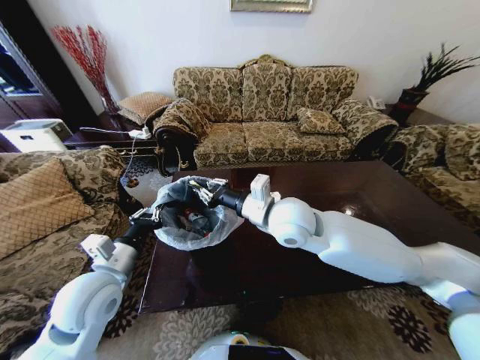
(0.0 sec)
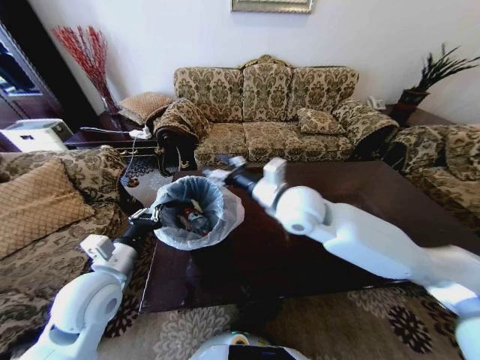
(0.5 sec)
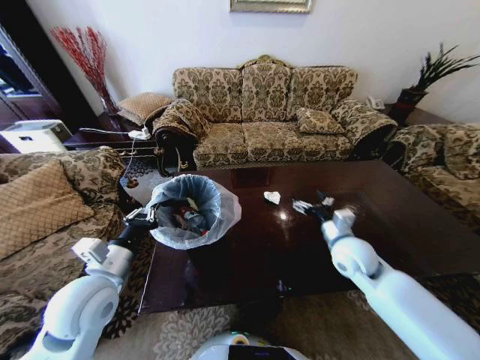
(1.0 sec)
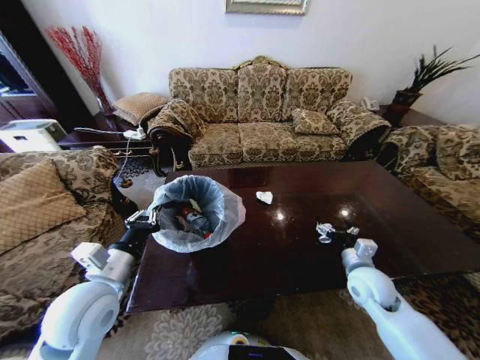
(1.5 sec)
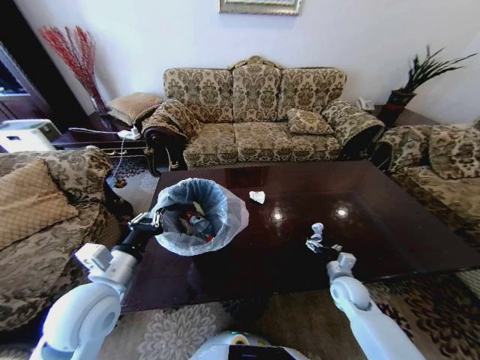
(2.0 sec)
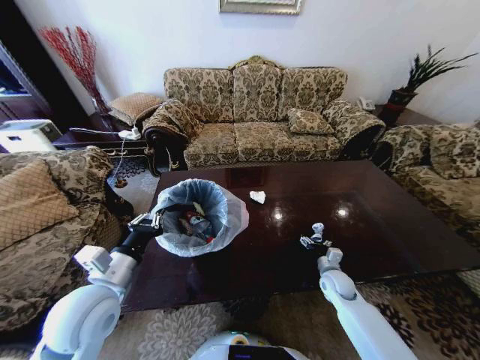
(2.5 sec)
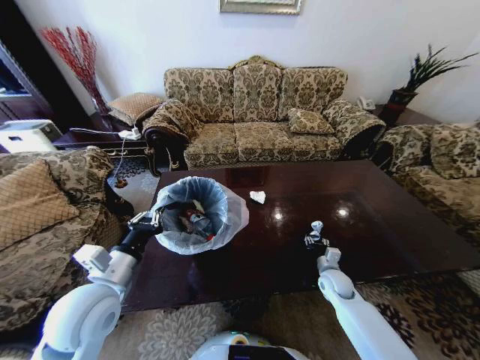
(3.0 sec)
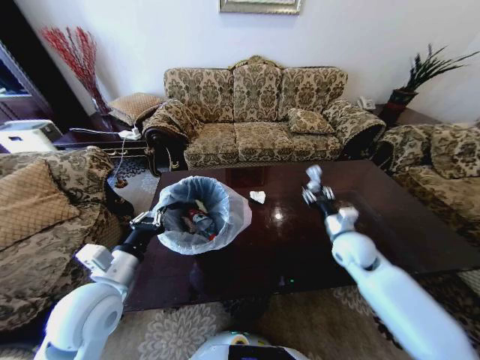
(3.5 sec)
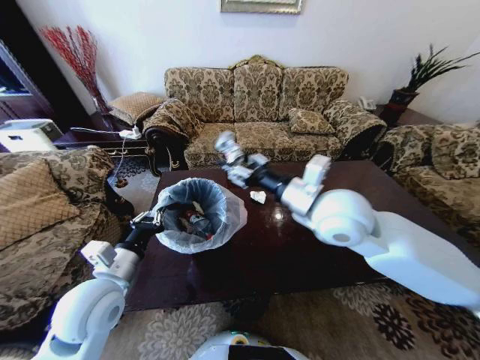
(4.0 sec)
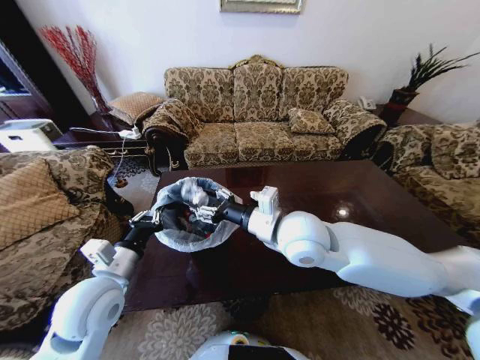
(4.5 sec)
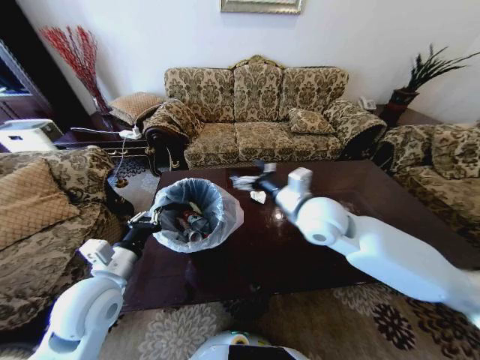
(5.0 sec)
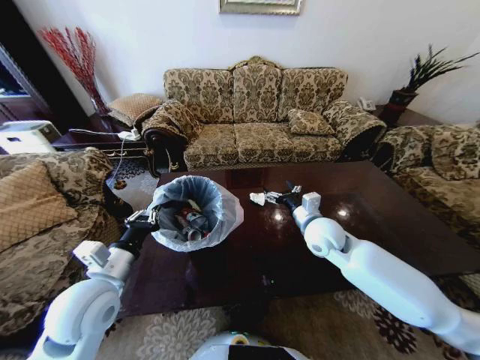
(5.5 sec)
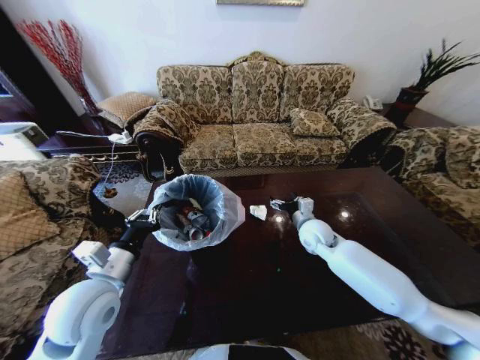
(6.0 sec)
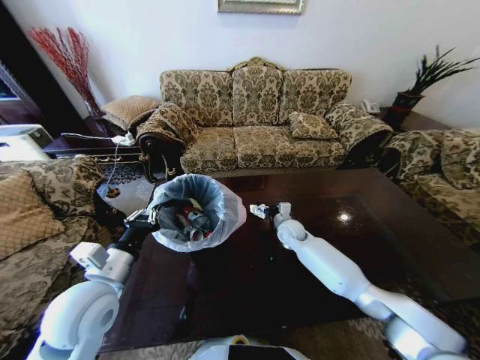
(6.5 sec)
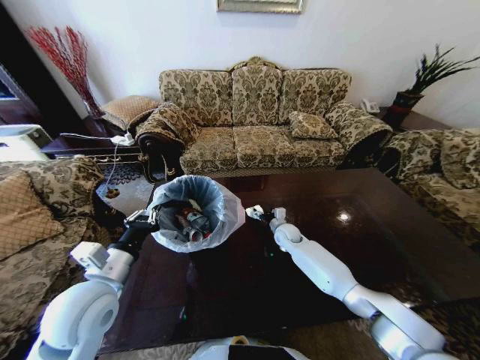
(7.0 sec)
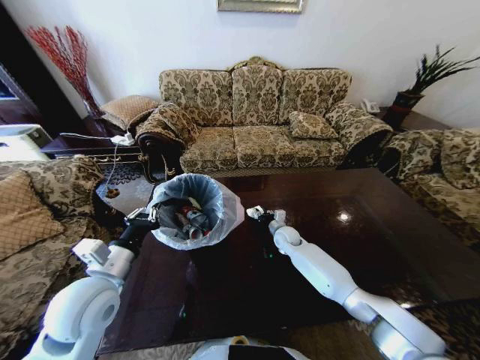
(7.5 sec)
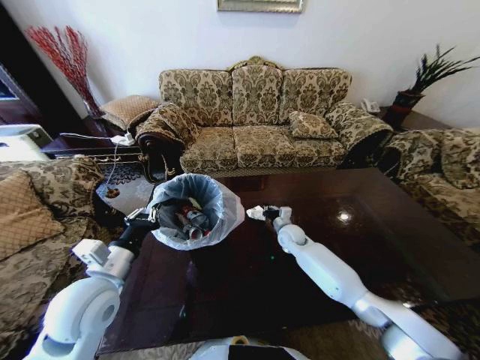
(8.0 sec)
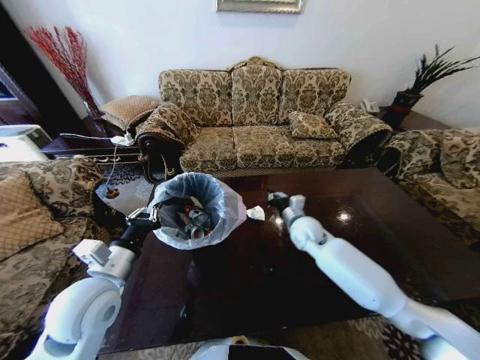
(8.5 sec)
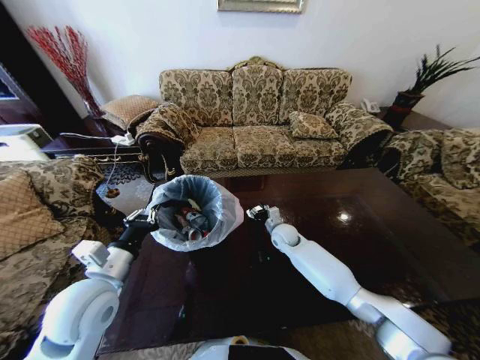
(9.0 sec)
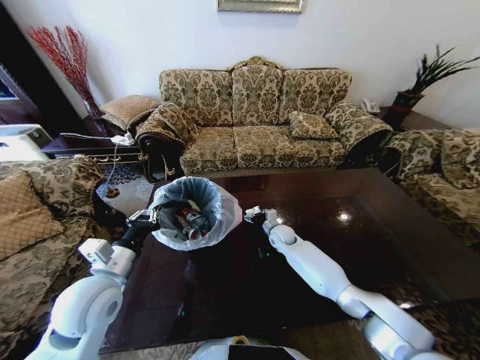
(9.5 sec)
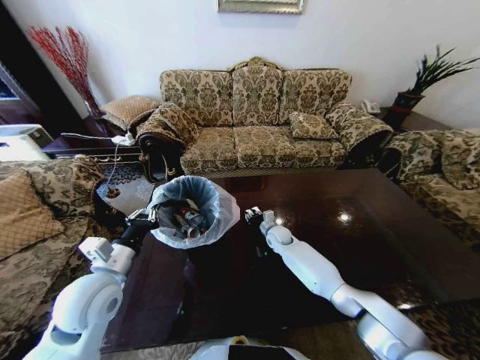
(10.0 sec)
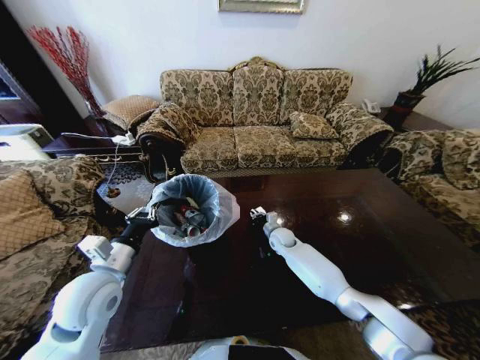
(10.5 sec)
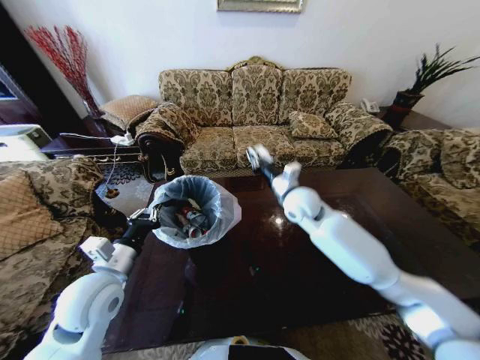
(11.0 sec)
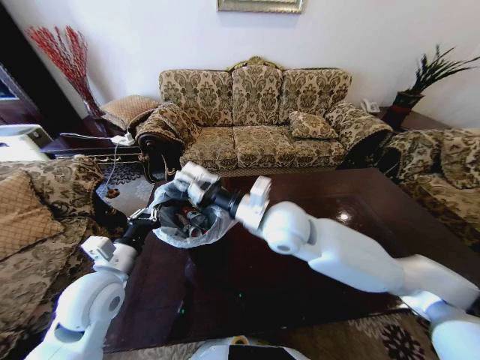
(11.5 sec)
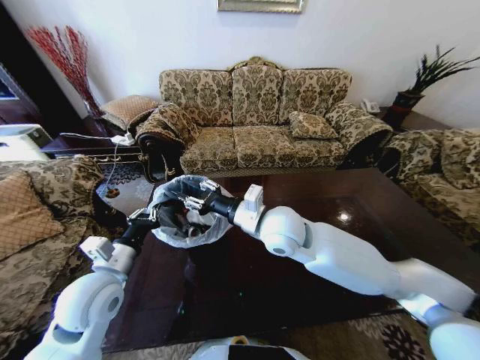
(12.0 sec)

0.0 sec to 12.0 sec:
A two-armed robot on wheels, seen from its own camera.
Task of the whole recording: Move to the front of the table and place the trash on the table into the trash bin.
0.0 sec to 2.0 sec: The right gripper moves downward and to the right, approximately 40 cm, and opens its fingers.
2.0 sec to 4.0 sec: The right gripper moves upward and to the left, approximately 40 cm, and closes.
4.0 sec to 6.0 sec: The right gripper shifts about 25 cm downward and forward, and opens its fingers.
6.0 sec to 8.0 sec: The right gripper shifts approximately 10 cm downward and forward, and closes up.
8.0 sec to 10.0 sec: The right gripper travels upward and back again, approximately 10 cm each way, and opens.
10.0 sec to 12.0 sec: The right gripper heads upward and backward, covering about 35 cm.

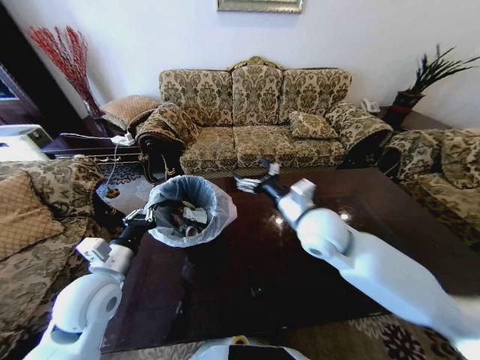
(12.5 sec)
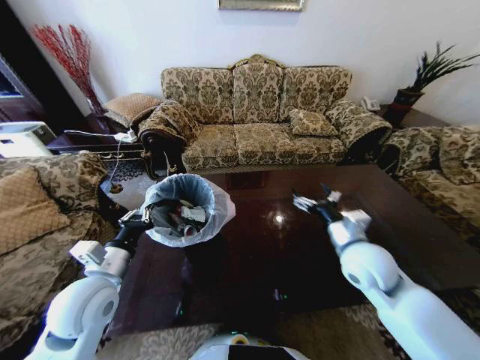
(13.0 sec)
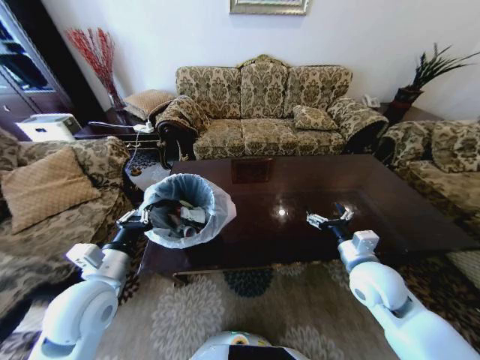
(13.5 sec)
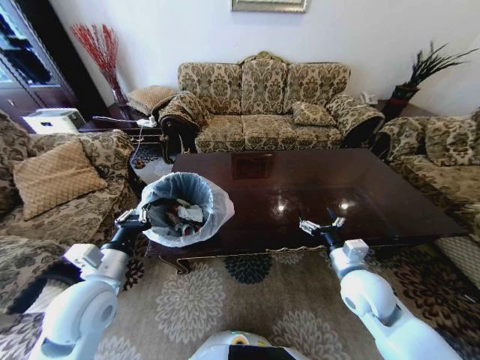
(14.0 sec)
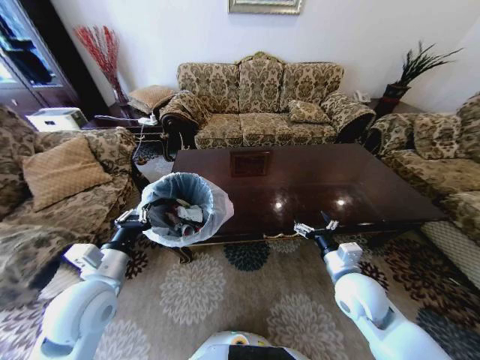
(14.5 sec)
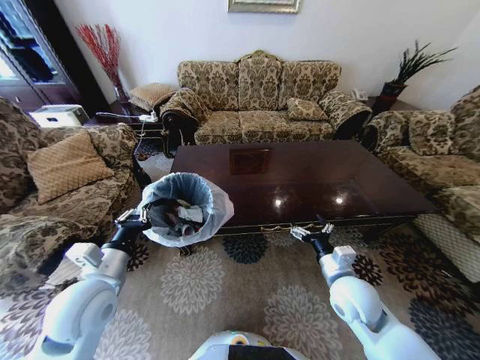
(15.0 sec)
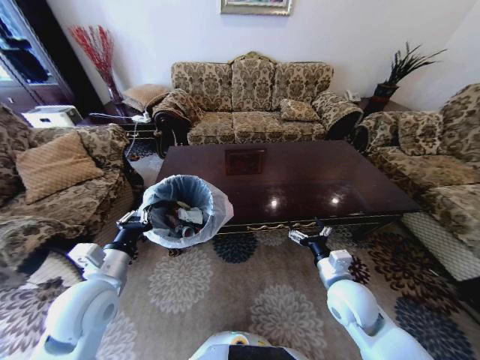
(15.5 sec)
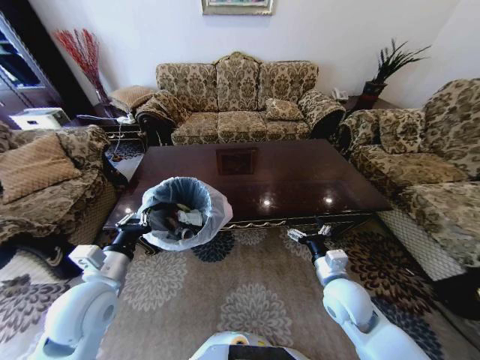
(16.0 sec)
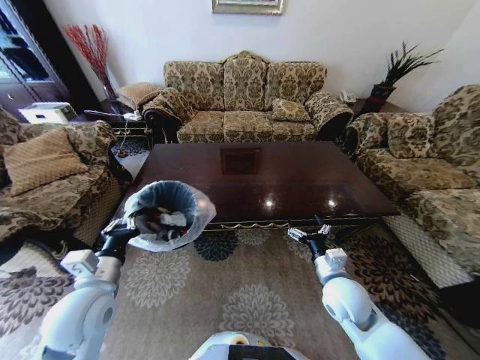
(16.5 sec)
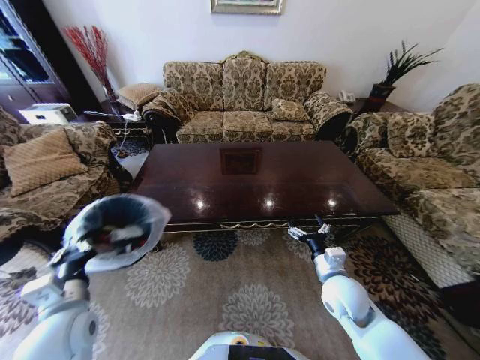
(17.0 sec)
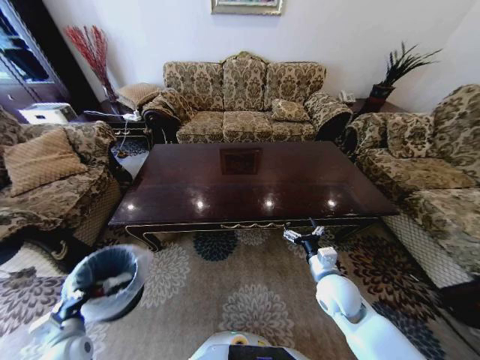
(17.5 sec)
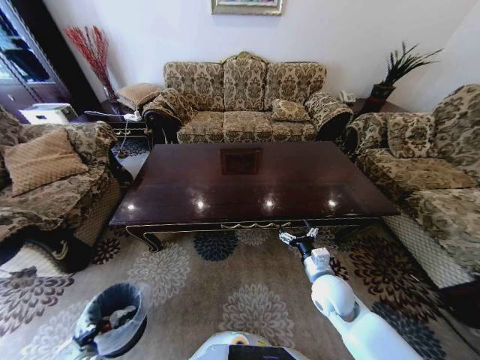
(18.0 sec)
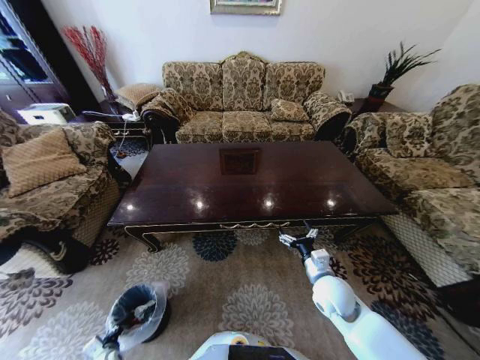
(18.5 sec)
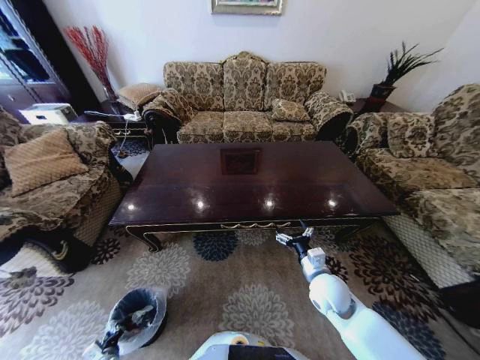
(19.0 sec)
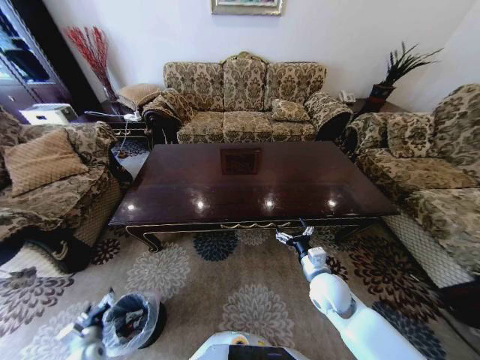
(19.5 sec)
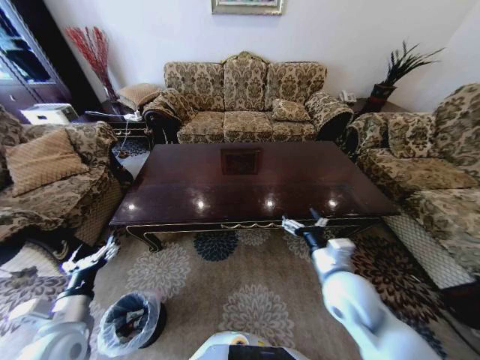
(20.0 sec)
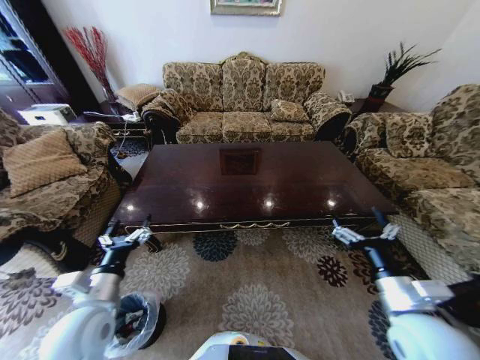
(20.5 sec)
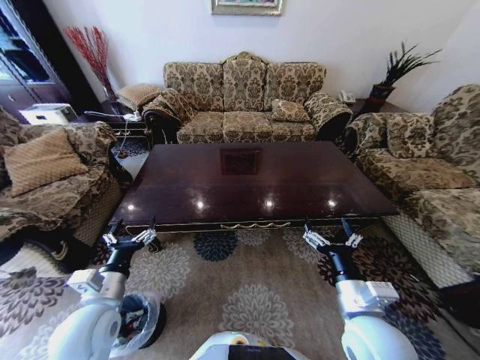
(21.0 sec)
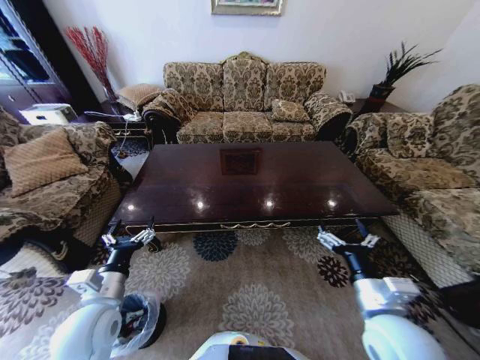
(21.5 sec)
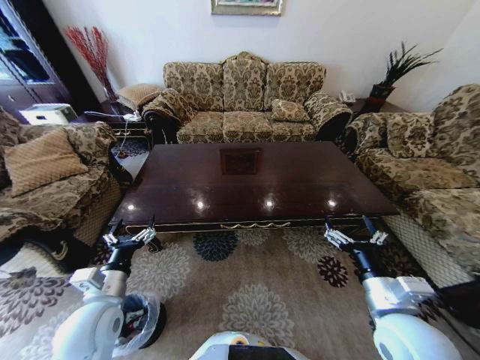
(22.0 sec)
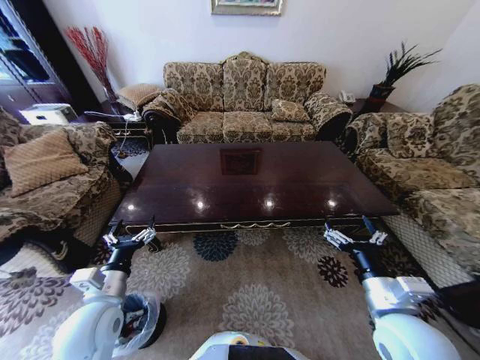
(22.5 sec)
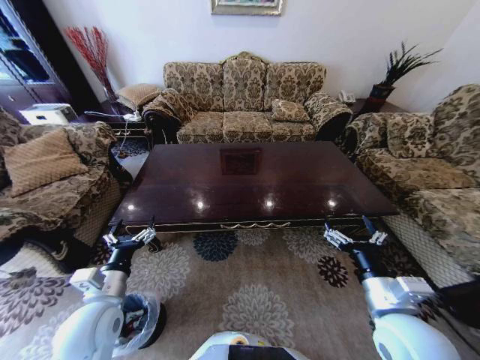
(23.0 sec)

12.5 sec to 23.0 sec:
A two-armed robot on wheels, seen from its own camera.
Task of the whole recording: Move to the front of the table and place the trash on the table into the trash bin.
12.5 sec to 14.5 sec: The right gripper goes some 20 cm downward, to the right and backward.
16.5 sec to 19.0 sec: The left gripper goes some 40 cm downward.
19.0 sec to 21.0 sec: The right gripper heads backward and upward, covering some 15 cm. Meanwhile the left gripper moves upward, some 40 cm, and opens its fingers.
21.0 sec to 23.0 sec: The right gripper heads to the right, covering about 5 cm.

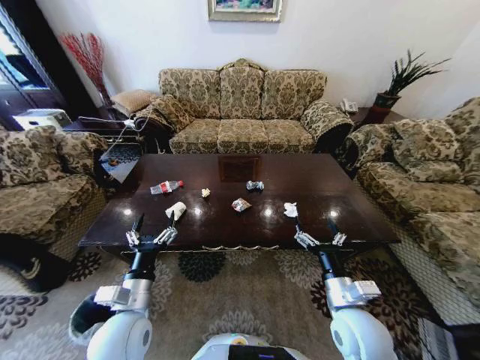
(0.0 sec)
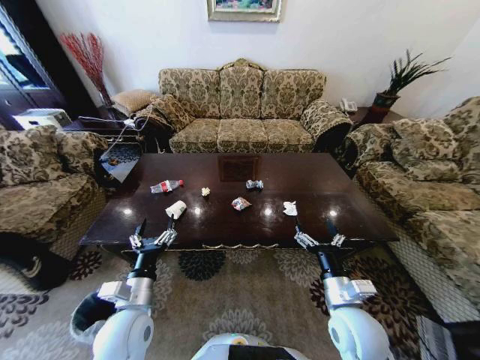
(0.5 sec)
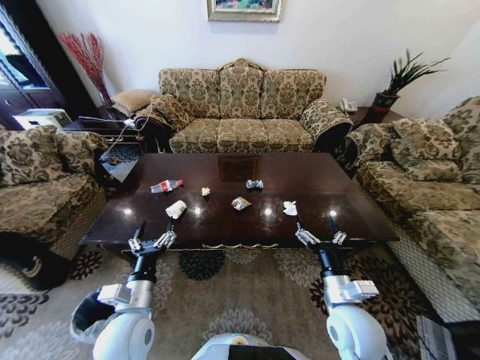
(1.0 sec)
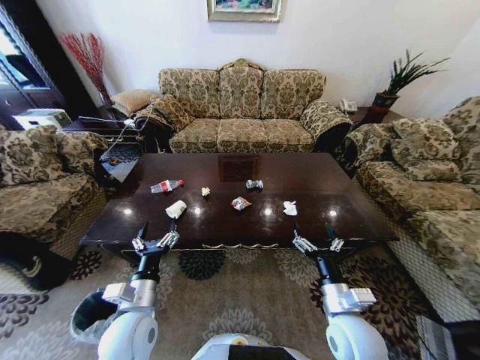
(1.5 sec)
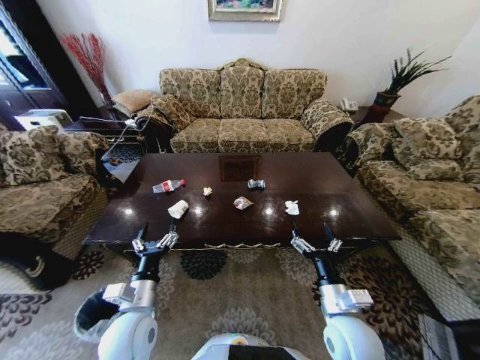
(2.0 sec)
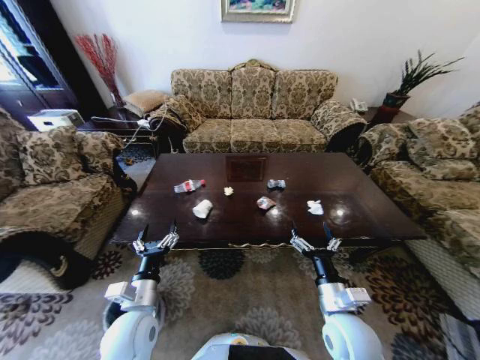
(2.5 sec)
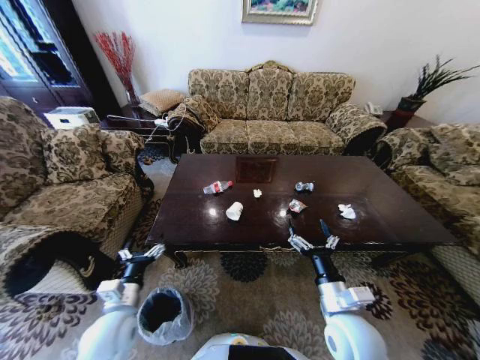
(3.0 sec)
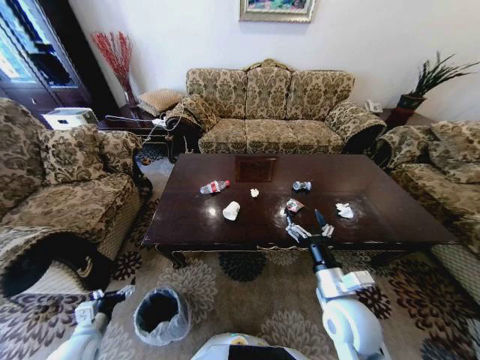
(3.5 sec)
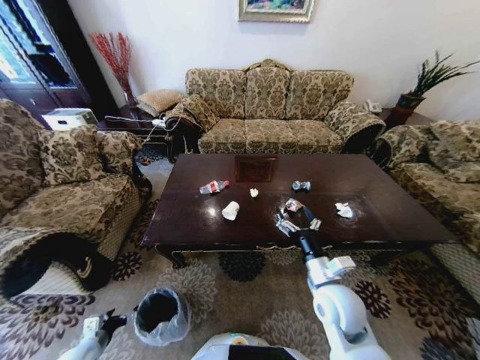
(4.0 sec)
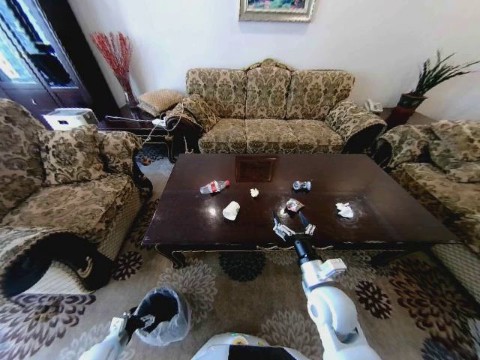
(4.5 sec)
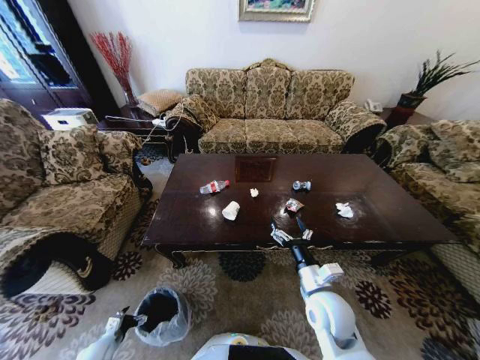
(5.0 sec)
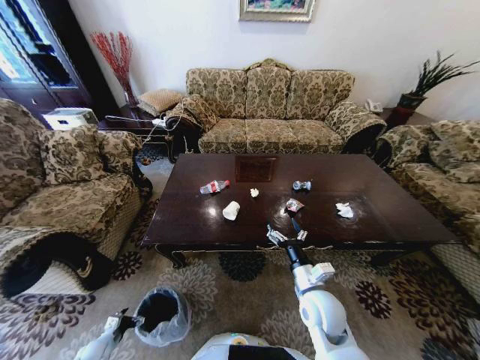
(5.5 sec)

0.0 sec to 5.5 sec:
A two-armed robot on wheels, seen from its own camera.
Task of the whole recording: Move to the front of the table and place the trash on the table into the trash bin.
2.0 sec to 3.5 sec: The left gripper moves to the left and downward, roughly 20 cm.
3.5 sec to 5.5 sec: The right gripper moves downward, roughly 5 cm. Meanwhile the left gripper travels downward and to the left by roughly 25 cm.
